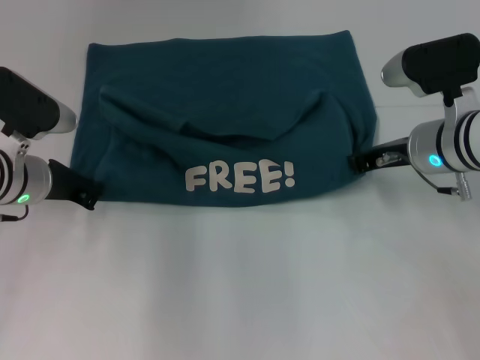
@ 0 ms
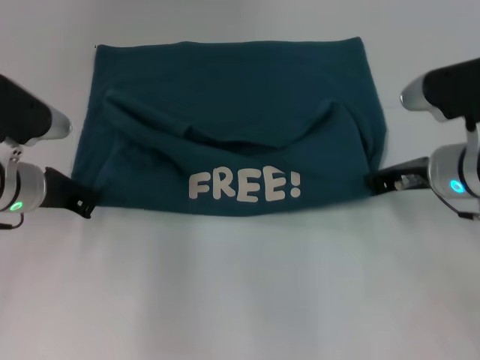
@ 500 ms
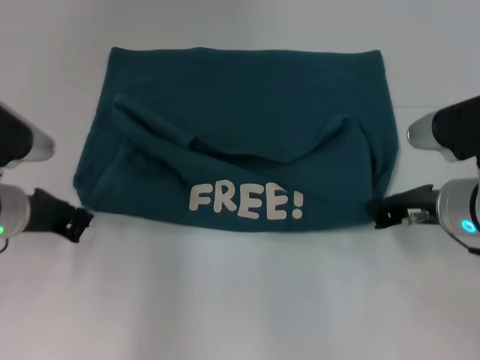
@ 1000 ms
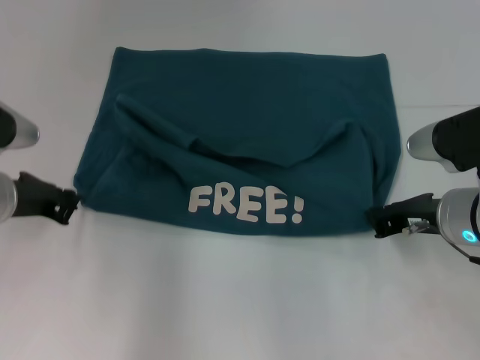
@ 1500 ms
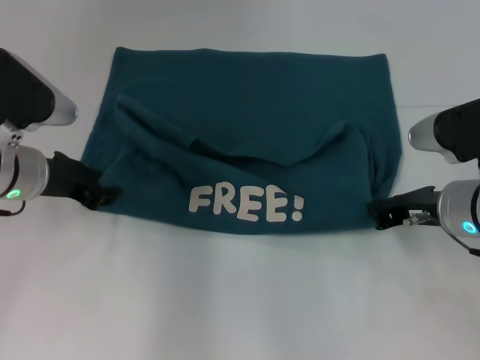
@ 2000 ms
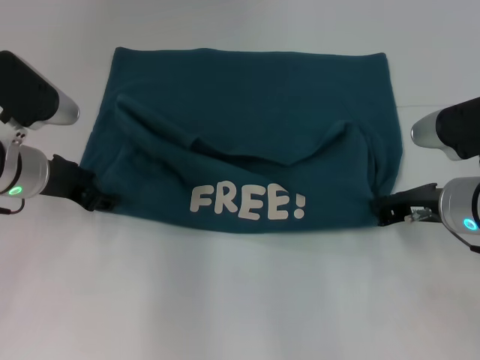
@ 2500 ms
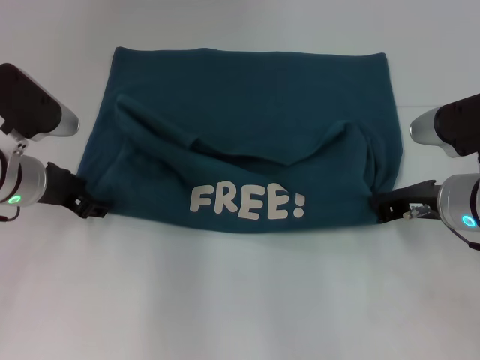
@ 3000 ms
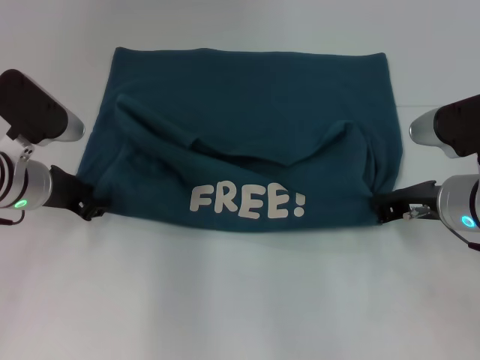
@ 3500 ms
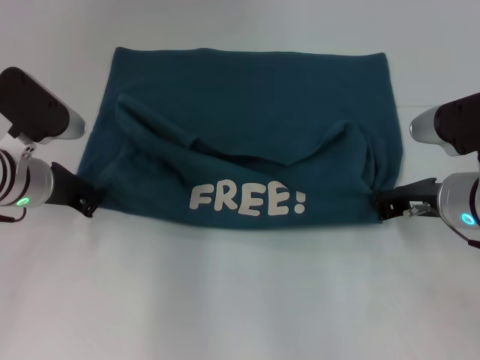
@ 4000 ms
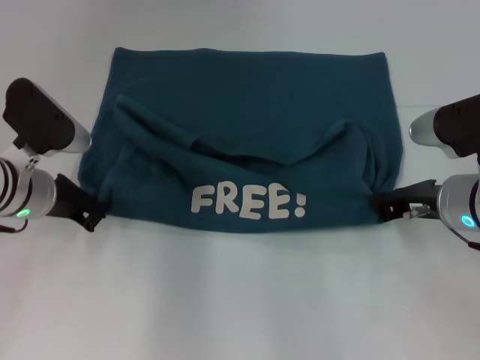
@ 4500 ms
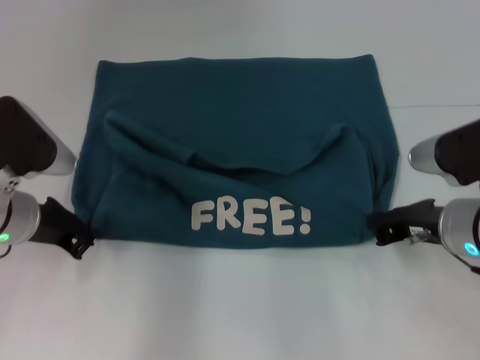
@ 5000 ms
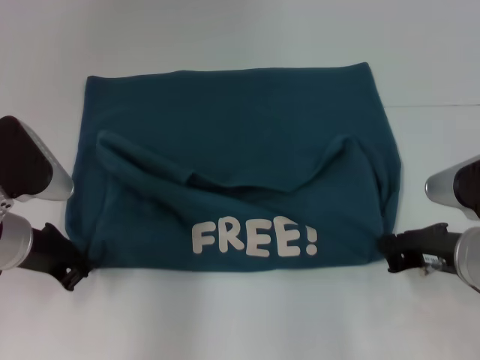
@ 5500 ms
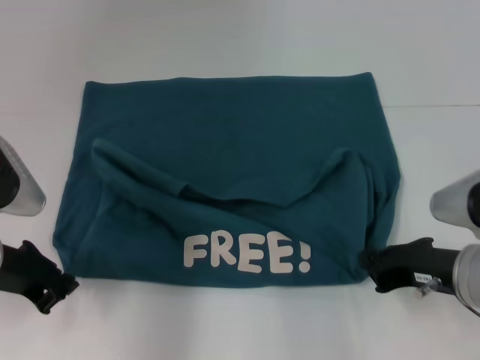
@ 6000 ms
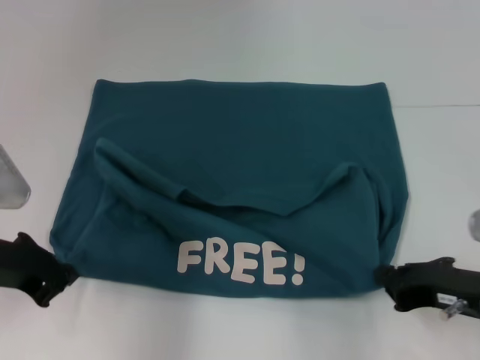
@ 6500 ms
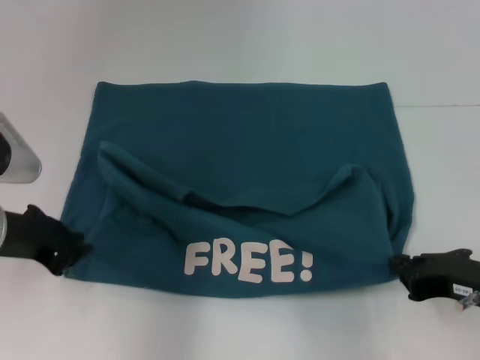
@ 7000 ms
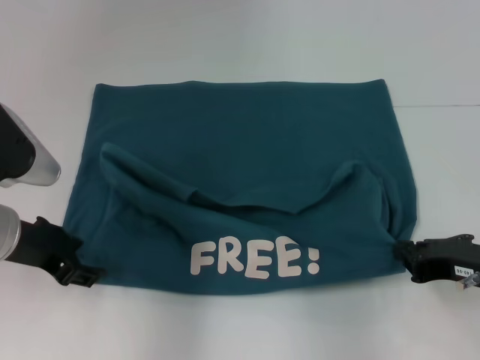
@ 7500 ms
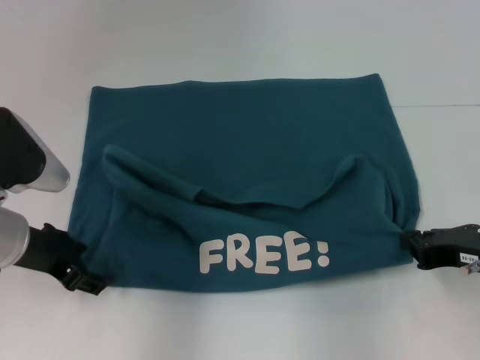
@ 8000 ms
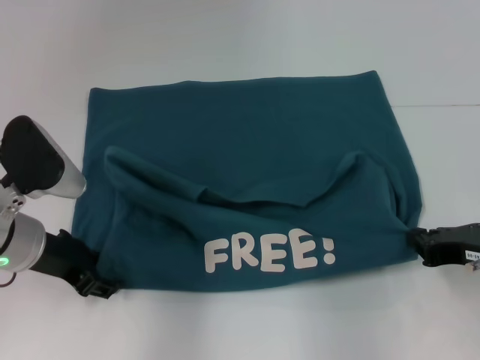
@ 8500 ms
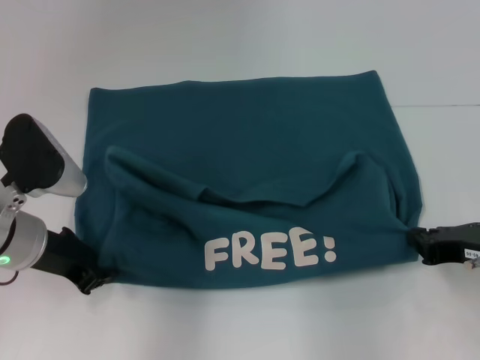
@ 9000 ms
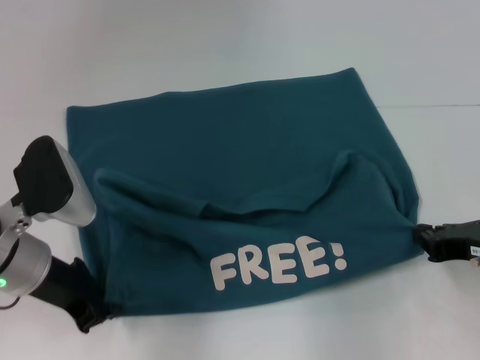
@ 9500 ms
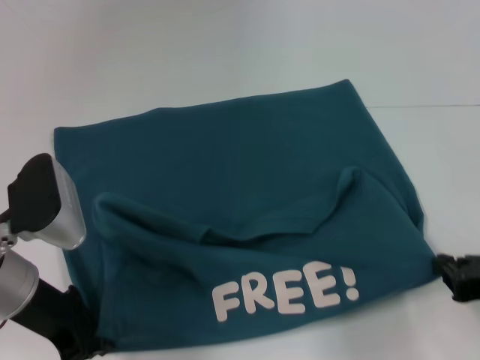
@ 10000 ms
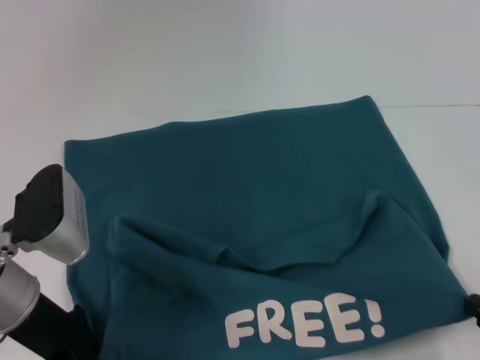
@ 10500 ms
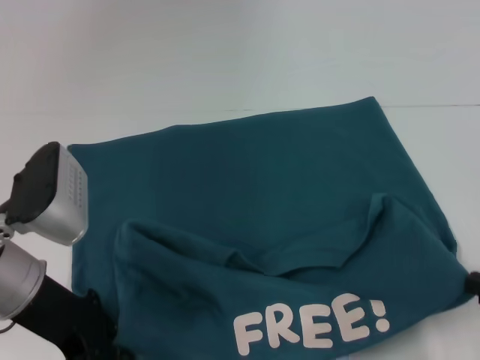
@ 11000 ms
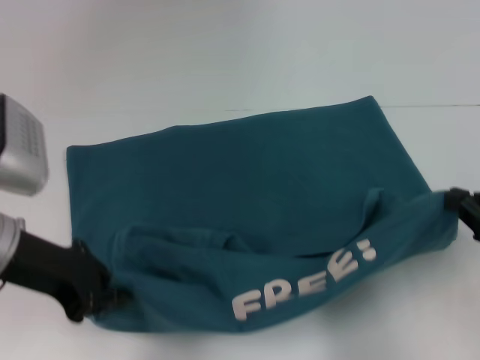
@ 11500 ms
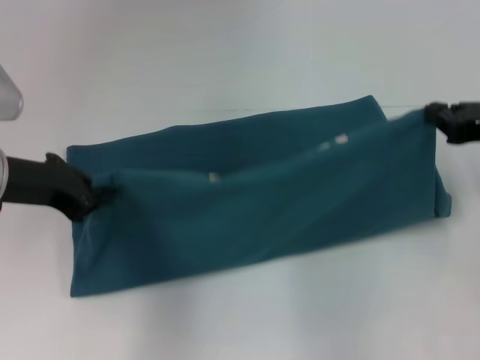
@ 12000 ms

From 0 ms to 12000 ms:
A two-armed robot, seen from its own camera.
Step, from 0 ms to 10500 ms: Pull the clothes with your left hand.
Step, from 0 ms to 10500 ms: Pull the clothes with your right hand.
From 0 ms to 2000 ms: The right gripper is displaced backward by about 5 cm.
From 2000 ms to 4000 ms: The left gripper opens, then closes again.
From 4000 ms to 6000 ms: The two grippers go roughly 10 cm backward.
From 6000 ms to 8000 ms: The left gripper opens up.
From 8000 ms to 10000 ms: The left gripper closes up.
From 10000 ms to 12000 ms: The right gripper heads forward and upward, covering some 15 cm. The left gripper goes some 5 cm upward.

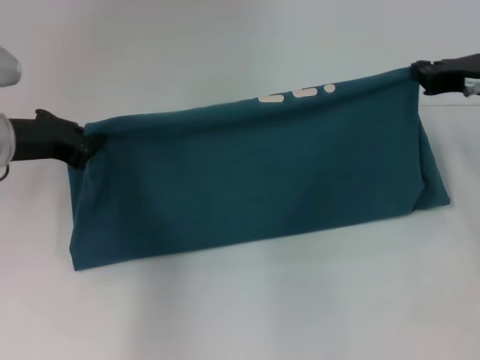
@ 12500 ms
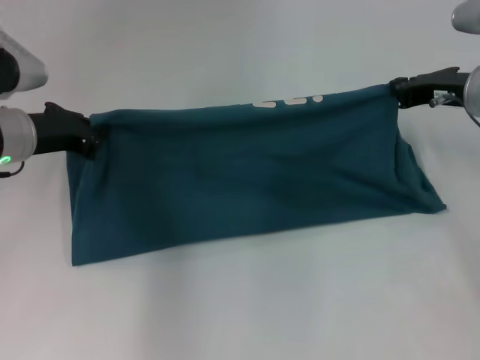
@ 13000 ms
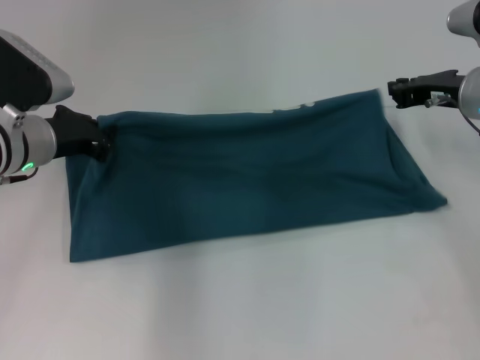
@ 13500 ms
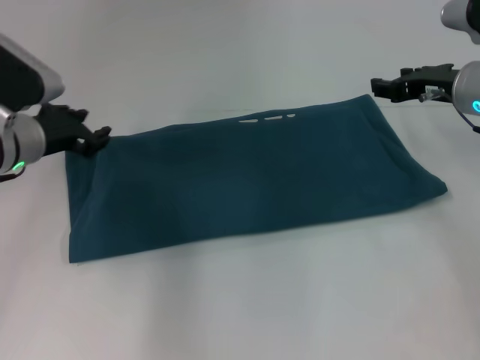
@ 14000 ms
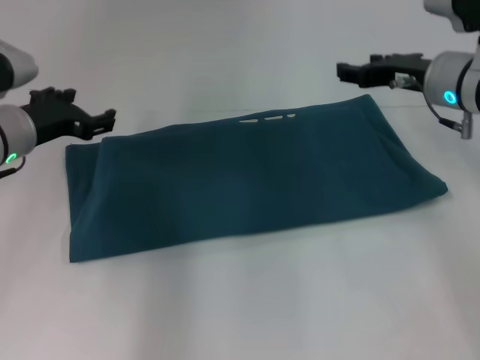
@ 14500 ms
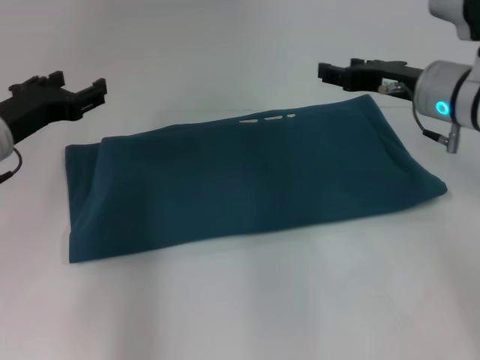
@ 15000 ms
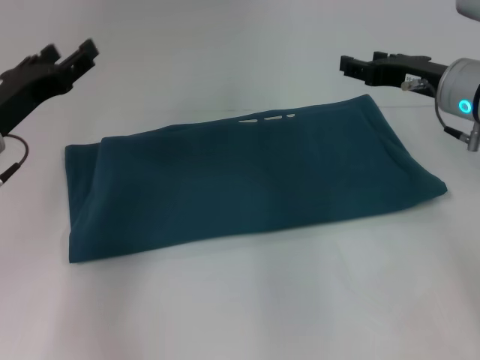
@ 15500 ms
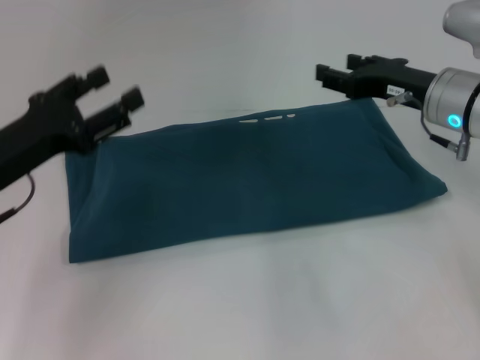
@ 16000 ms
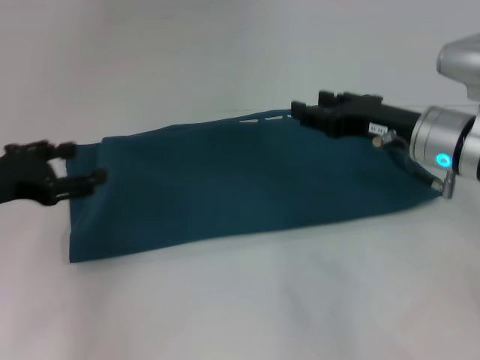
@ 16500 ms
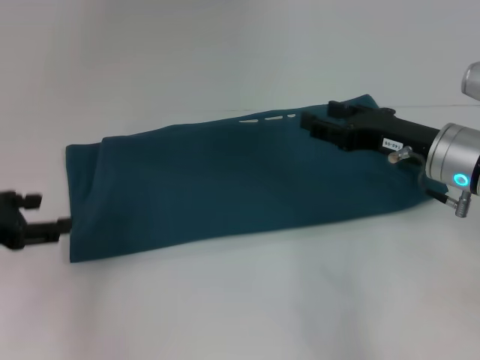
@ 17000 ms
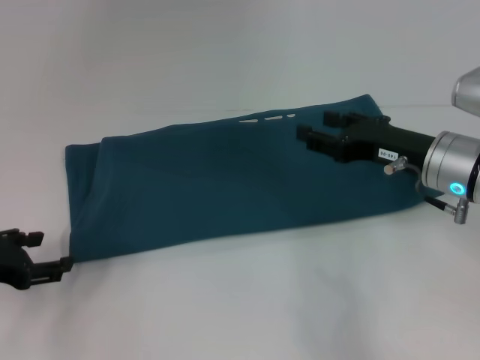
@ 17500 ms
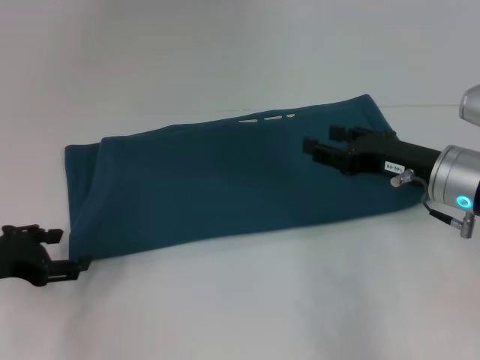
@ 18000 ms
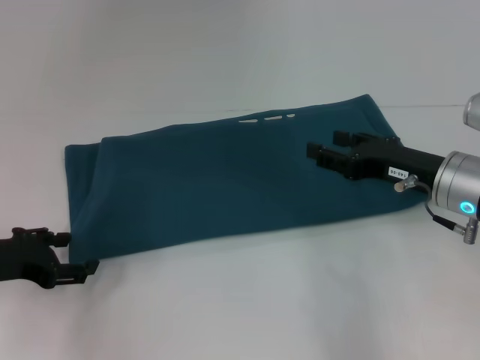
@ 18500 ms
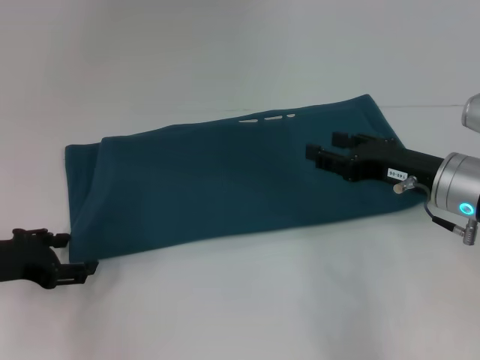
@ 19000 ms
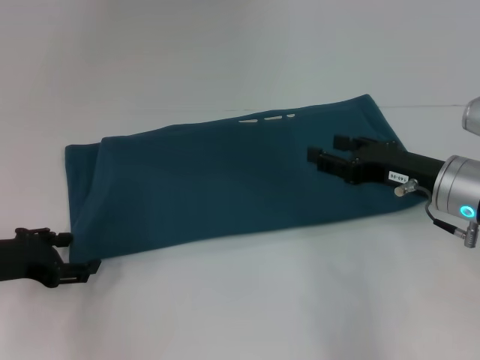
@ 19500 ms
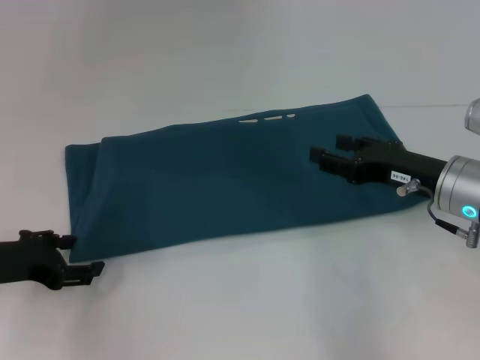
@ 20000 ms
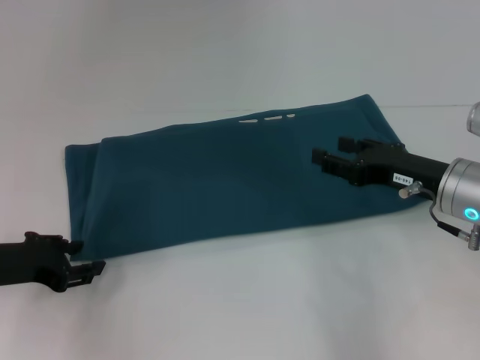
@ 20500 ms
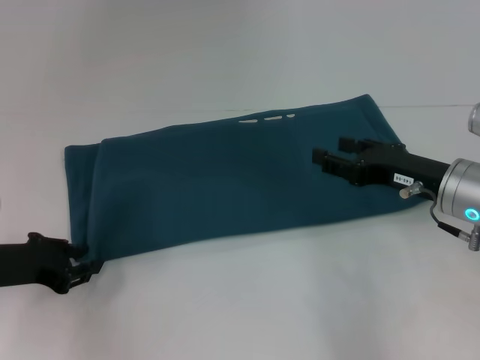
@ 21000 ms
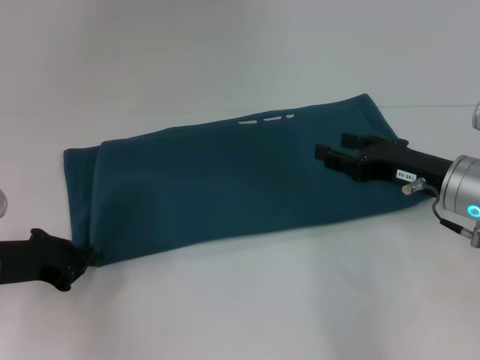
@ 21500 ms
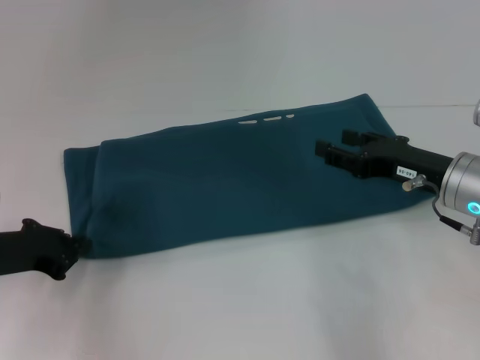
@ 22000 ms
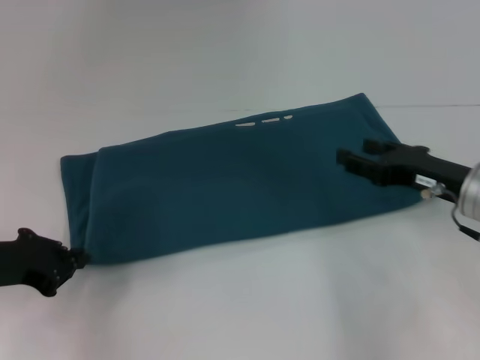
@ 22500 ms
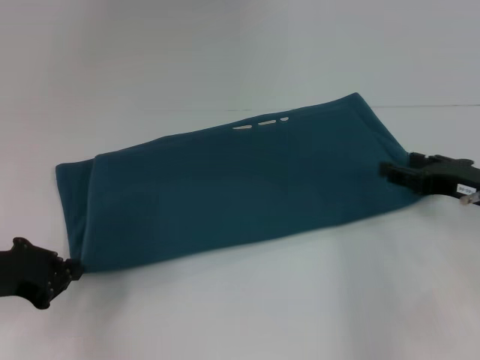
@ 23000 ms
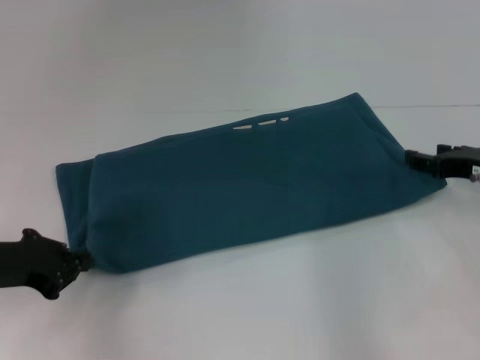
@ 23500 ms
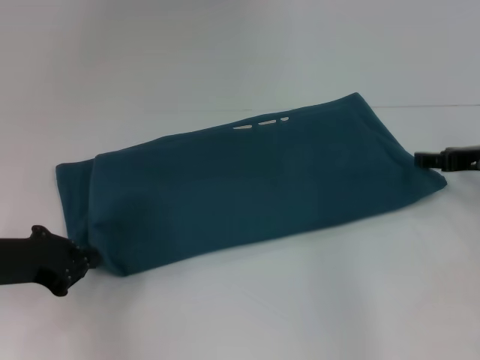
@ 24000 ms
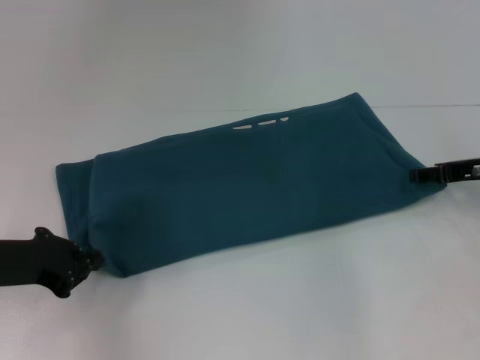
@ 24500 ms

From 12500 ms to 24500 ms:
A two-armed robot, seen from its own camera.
From 12500 ms to 14500 ms: The right gripper goes roughly 5 cm to the left, and opens up. Meanwhile the left gripper opens up.
From 14500 ms to 16500 ms: The left gripper shifts approximately 10 cm backward and to the left. The right gripper travels backward by approximately 5 cm.
From 16500 ms to 18500 ms: The left gripper moves downward, about 5 cm.
From 18500 ms to 20500 ms: Both grippers stay put.
From 20500 ms to 22500 ms: The left gripper closes its fingers.
From 22500 ms to 24500 ms: The right gripper is displaced to the right and forward by about 10 cm.

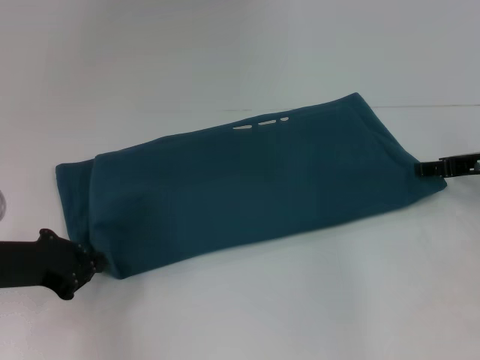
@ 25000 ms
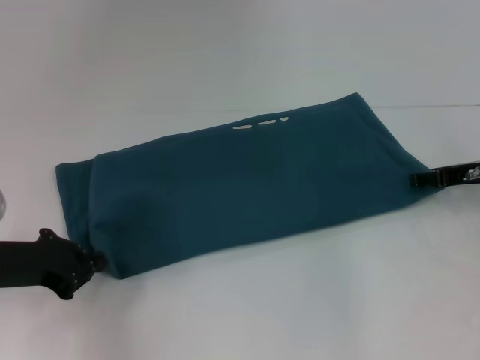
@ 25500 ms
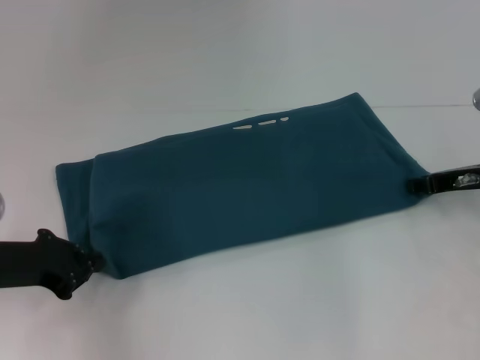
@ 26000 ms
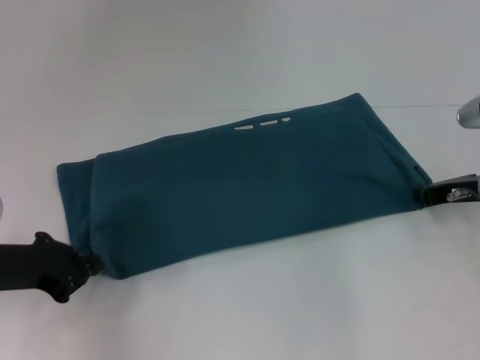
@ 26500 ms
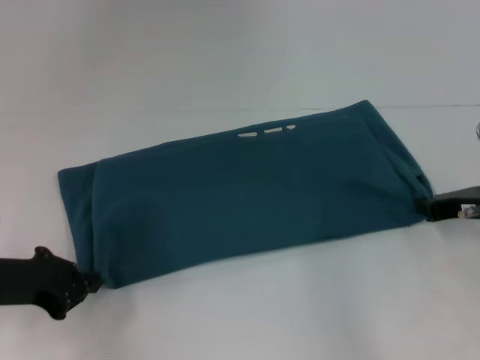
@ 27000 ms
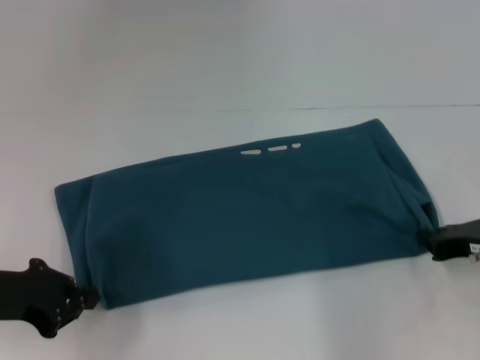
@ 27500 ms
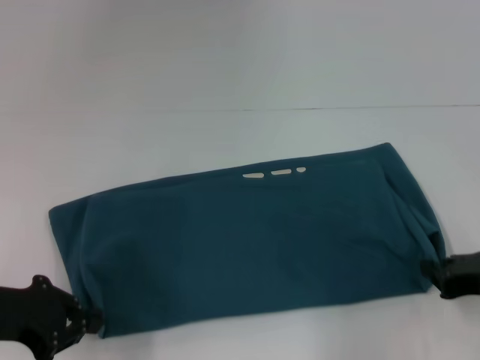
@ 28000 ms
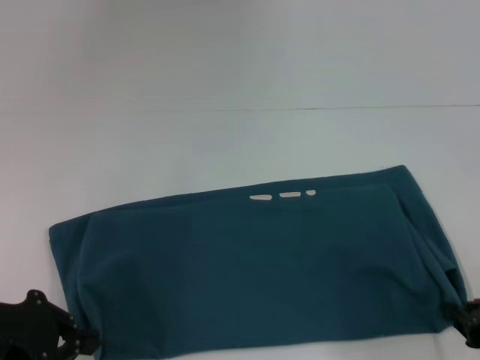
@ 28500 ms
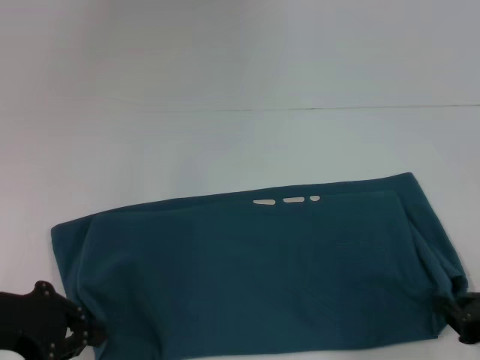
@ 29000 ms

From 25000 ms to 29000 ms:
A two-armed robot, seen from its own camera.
Step, from 25000 ms to 28500 ms: Pull the clothes with your left hand.
Step, from 25000 ms to 28500 ms: Pull the clothes with your right hand.
From 25000 ms to 27000 ms: The right gripper moves approximately 5 cm, and closes up.
From 27000 ms to 29000 ms: The left gripper ends up about 5 cm from where it was; the right gripper goes roughly 15 cm backward.
